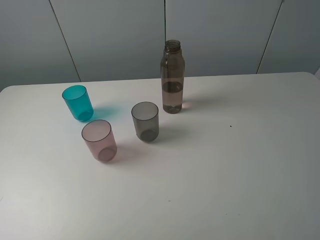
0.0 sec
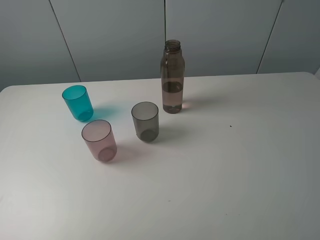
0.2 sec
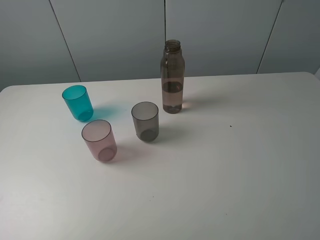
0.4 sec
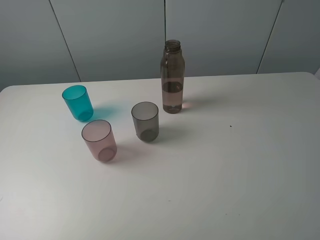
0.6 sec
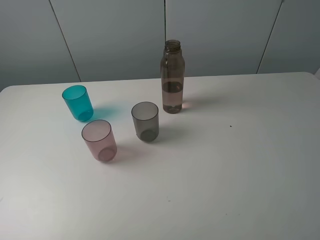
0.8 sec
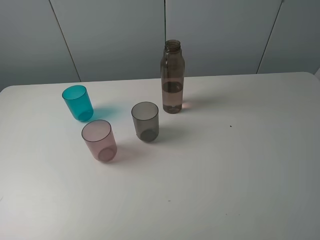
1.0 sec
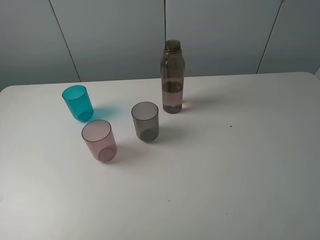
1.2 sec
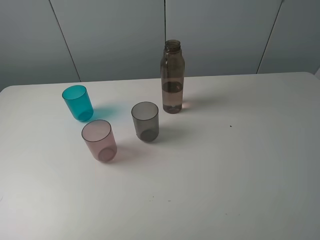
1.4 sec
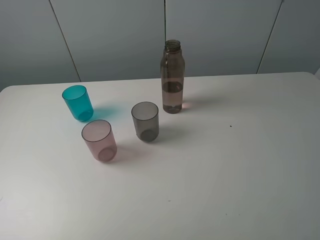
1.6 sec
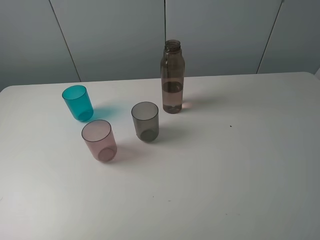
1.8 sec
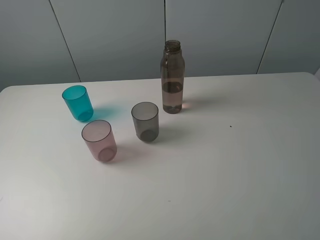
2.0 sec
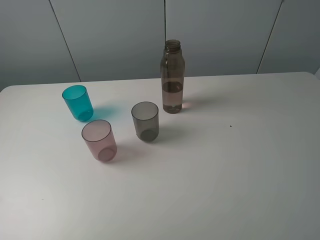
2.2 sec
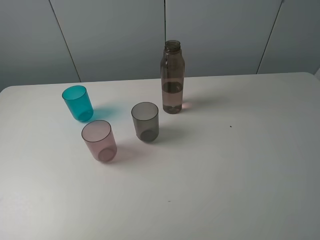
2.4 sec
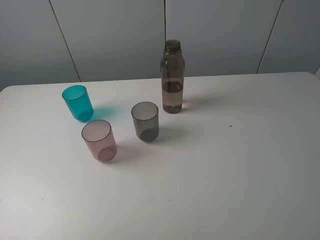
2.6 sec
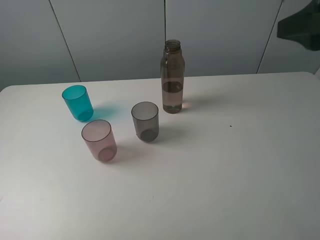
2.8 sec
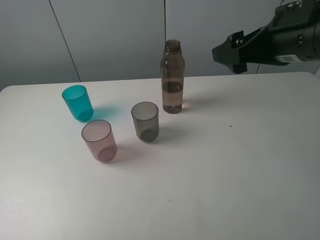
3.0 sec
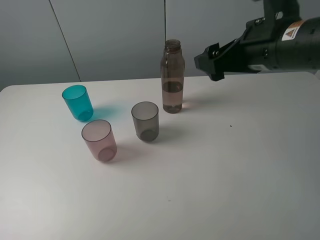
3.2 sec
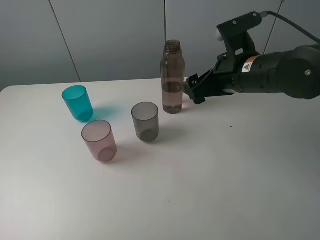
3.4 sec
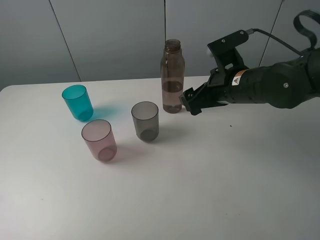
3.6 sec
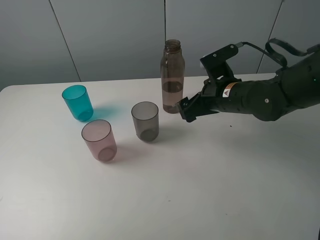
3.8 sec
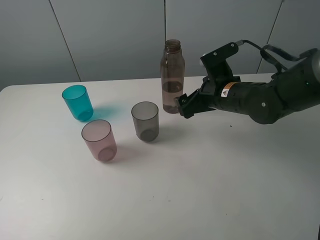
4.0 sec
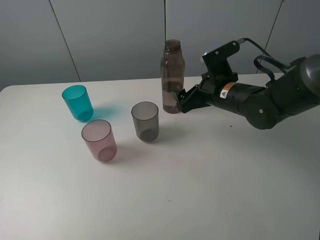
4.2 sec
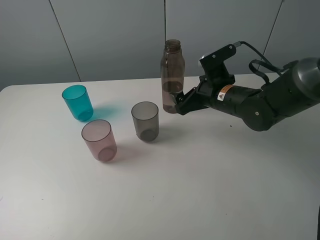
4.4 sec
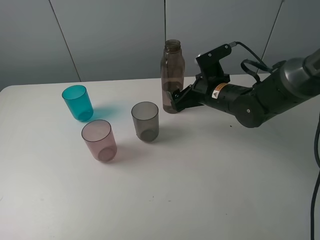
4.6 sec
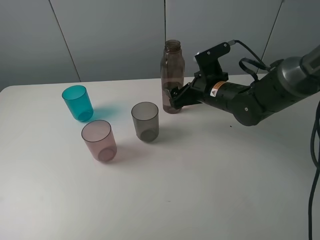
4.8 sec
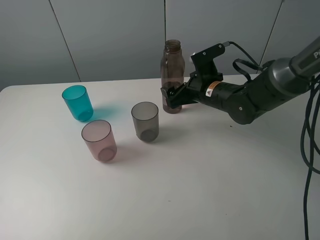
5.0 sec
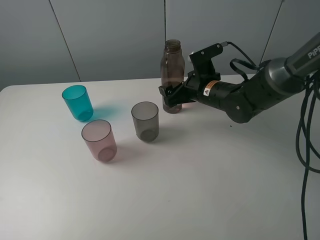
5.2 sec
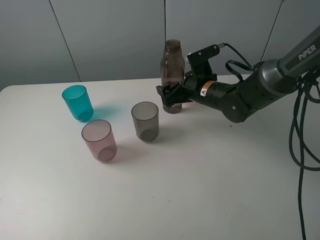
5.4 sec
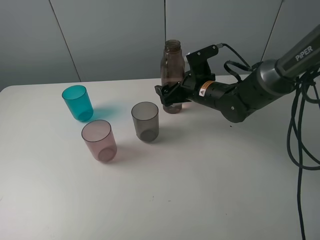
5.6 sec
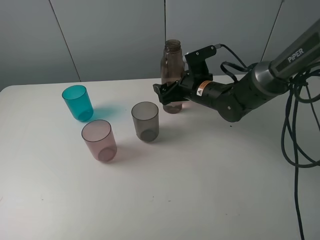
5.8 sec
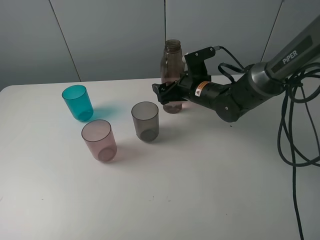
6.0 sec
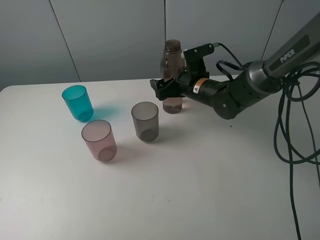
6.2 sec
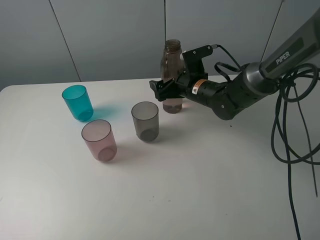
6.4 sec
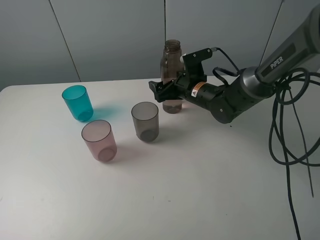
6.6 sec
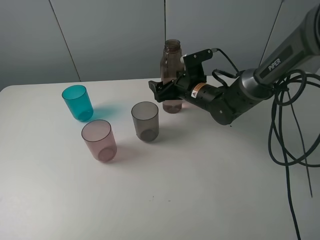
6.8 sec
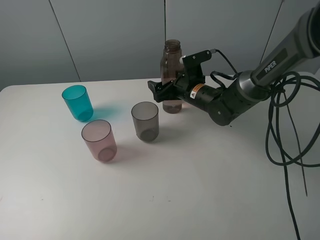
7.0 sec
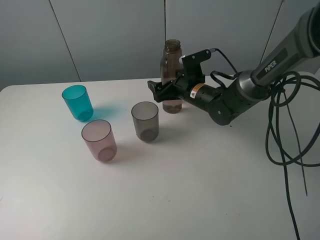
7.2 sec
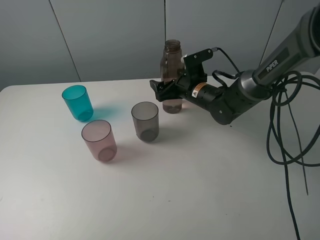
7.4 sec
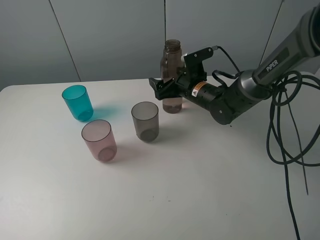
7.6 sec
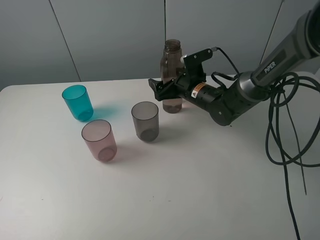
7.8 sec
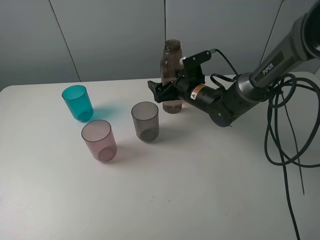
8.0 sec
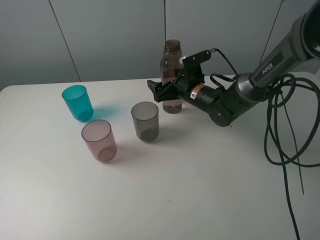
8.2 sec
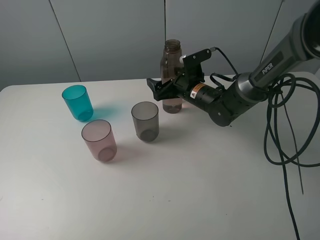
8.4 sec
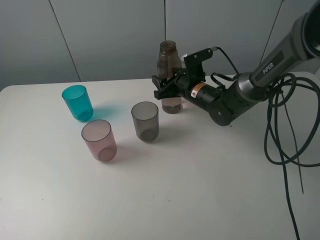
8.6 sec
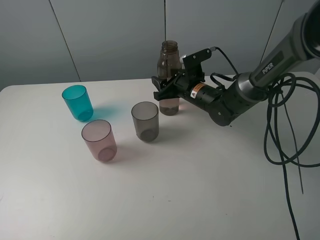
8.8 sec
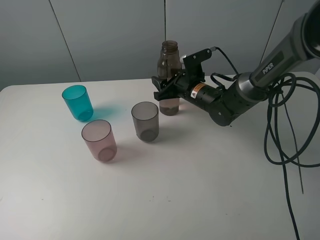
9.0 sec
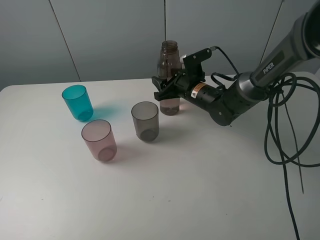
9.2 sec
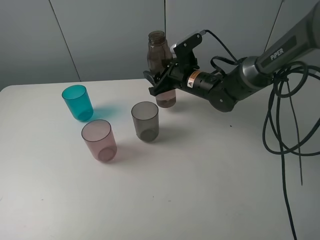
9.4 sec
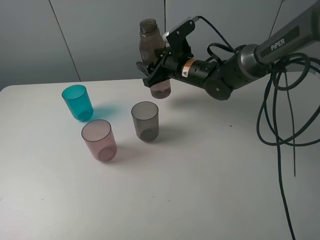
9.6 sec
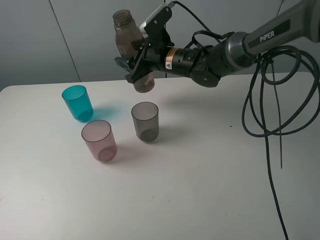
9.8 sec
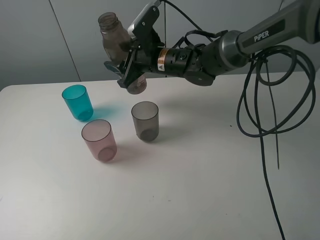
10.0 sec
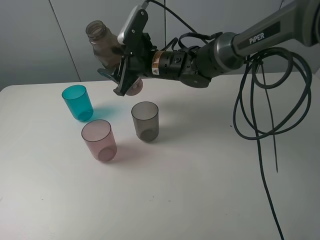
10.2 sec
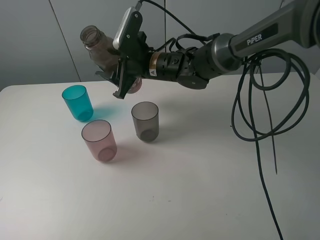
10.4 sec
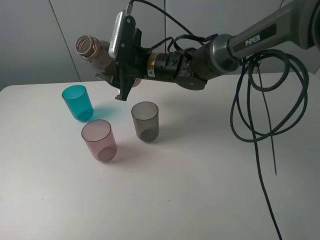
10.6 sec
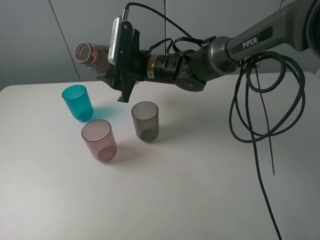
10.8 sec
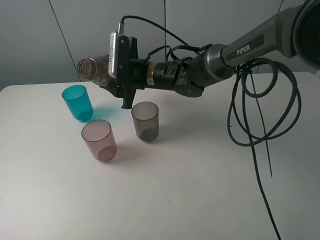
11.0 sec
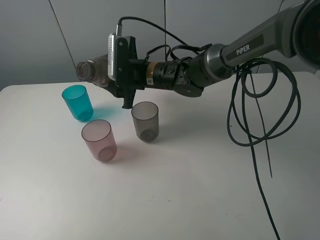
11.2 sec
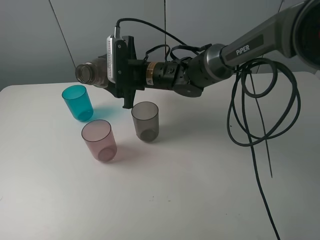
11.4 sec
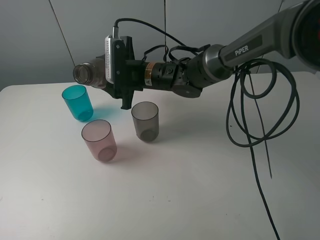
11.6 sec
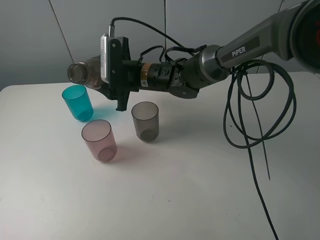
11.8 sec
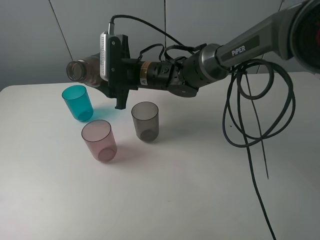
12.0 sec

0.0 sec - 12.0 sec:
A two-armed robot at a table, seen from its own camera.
Task of the whole recording: pick up the bottle filled with water and pour water into the middle cup of the three cups.
Step, 0.0 sec - 9.0 sec: Grasp the brown bottle with the right gripper.
0.0 sec - 1.6 sec: Both grippers stay put.
1.6 sec - 3.0 sec: The right gripper goes approximately 25 cm forward and to the left.
3.0 sec - 4.4 sec: The right gripper heads downward and forward, covering roughly 20 cm.
4.4 sec - 6.0 sec: The right gripper is displaced forward by approximately 5 cm.
6.0 sec - 7.6 sec: The grippers make only small movements.
7.6 sec - 9.0 sec: The right gripper closes up.
9.0 sec - 10.4 sec: The right gripper moves to the left and upward, approximately 15 cm.

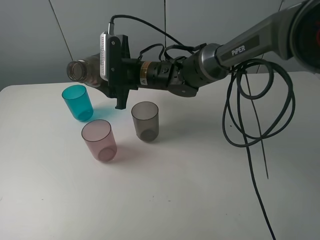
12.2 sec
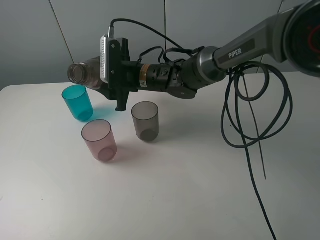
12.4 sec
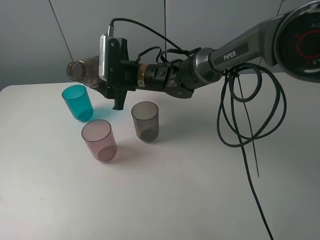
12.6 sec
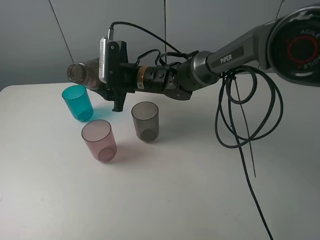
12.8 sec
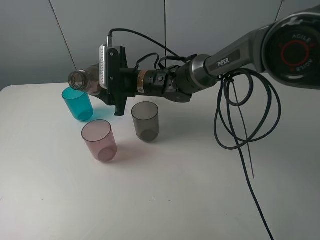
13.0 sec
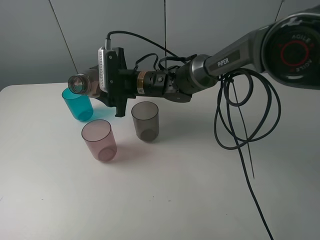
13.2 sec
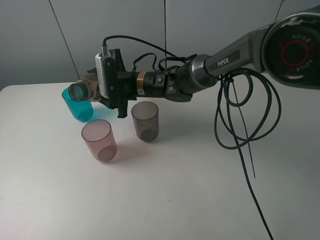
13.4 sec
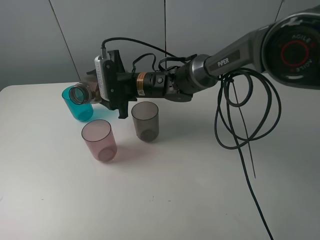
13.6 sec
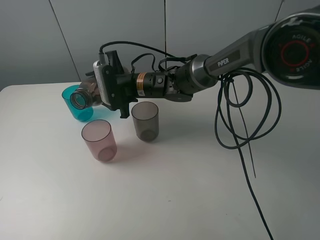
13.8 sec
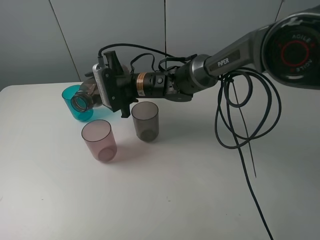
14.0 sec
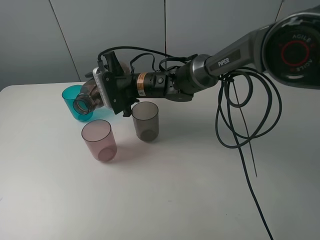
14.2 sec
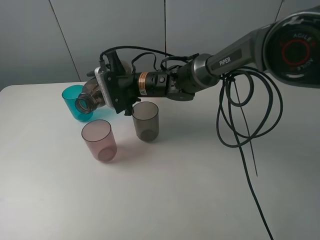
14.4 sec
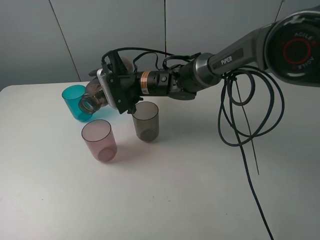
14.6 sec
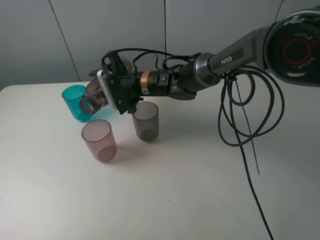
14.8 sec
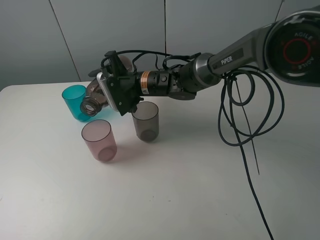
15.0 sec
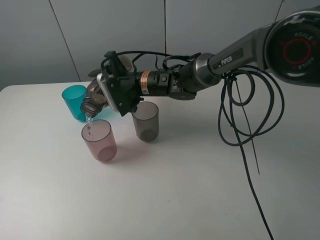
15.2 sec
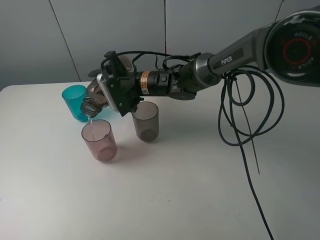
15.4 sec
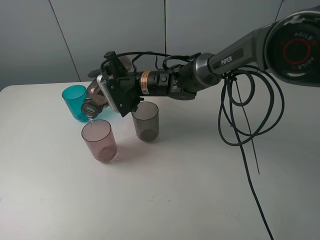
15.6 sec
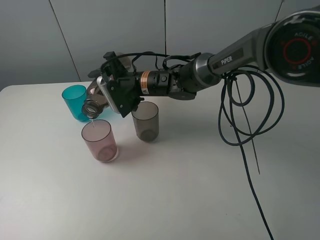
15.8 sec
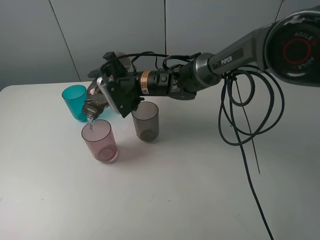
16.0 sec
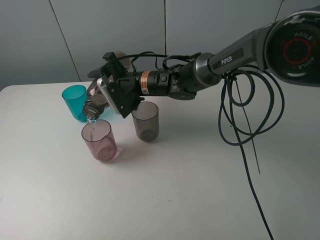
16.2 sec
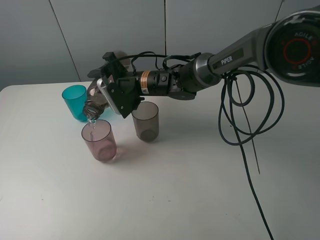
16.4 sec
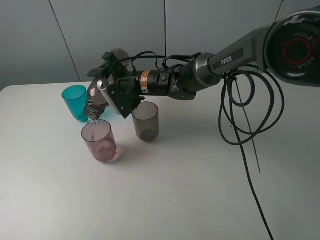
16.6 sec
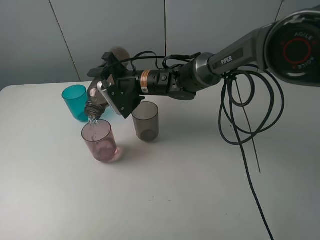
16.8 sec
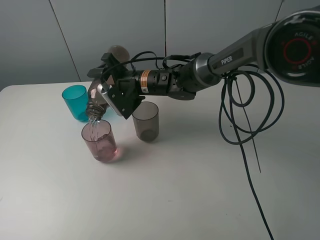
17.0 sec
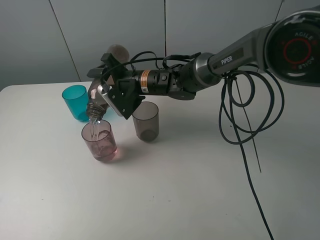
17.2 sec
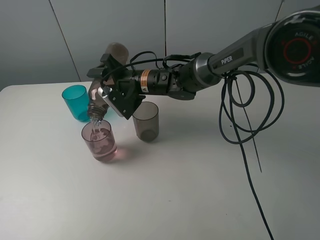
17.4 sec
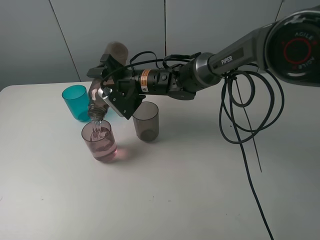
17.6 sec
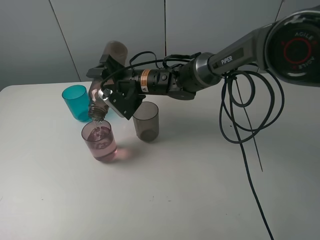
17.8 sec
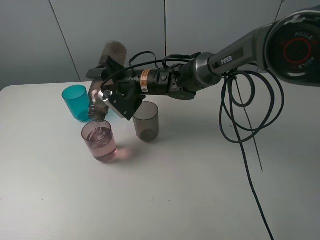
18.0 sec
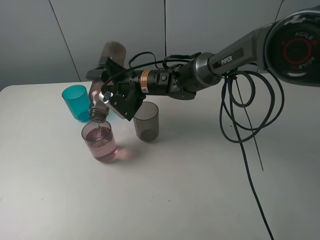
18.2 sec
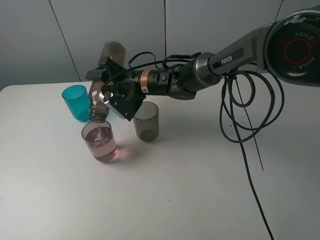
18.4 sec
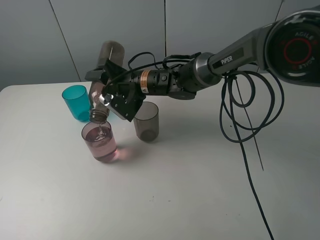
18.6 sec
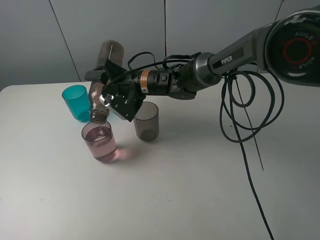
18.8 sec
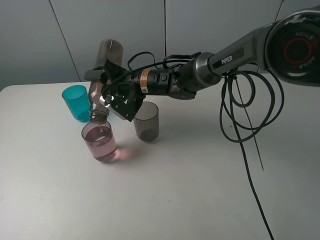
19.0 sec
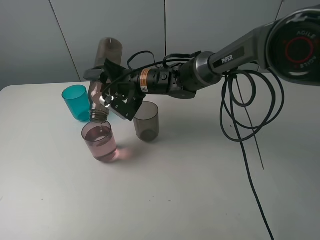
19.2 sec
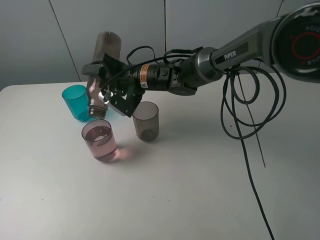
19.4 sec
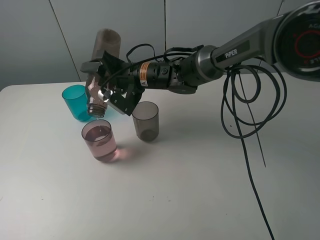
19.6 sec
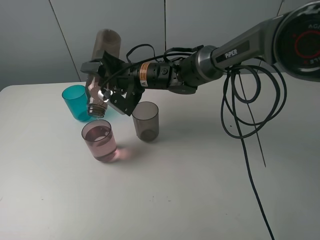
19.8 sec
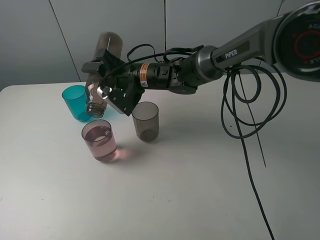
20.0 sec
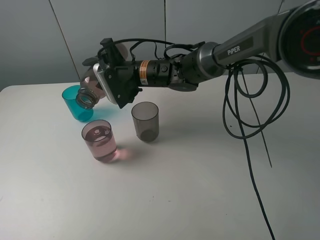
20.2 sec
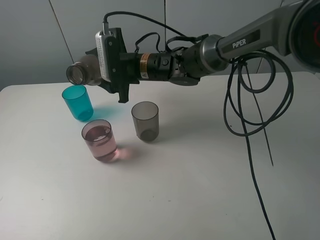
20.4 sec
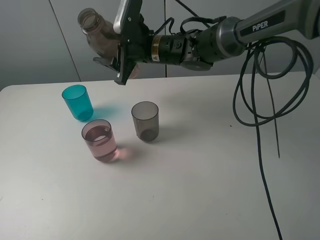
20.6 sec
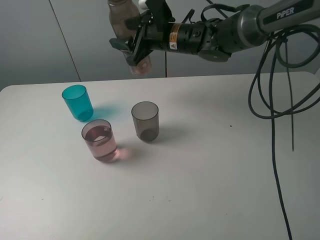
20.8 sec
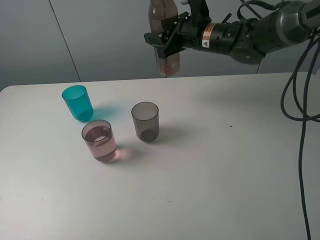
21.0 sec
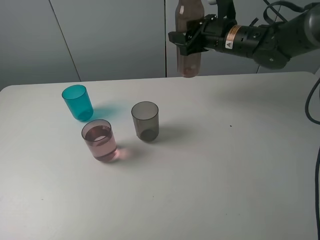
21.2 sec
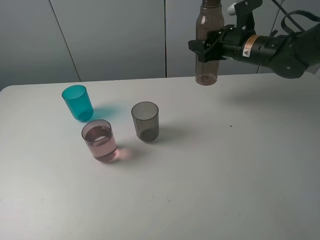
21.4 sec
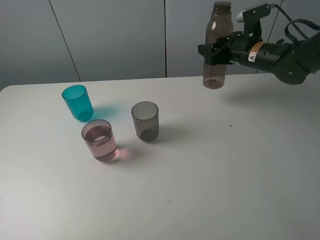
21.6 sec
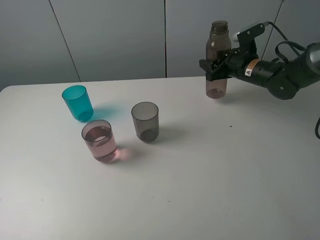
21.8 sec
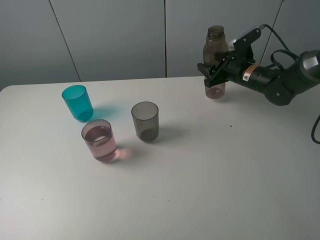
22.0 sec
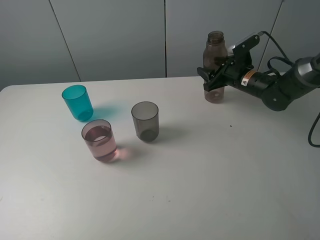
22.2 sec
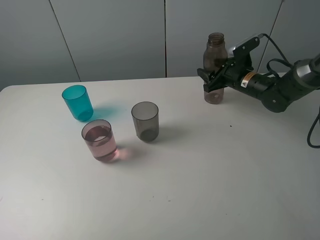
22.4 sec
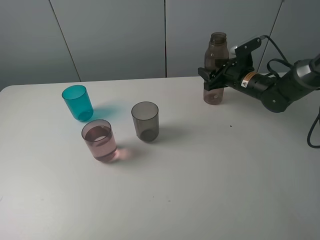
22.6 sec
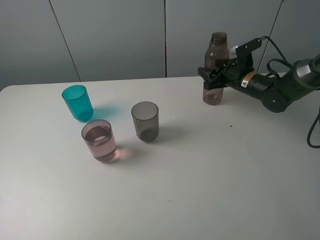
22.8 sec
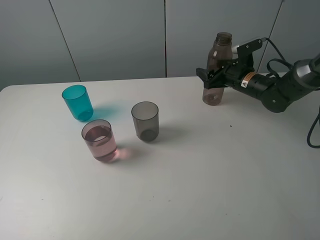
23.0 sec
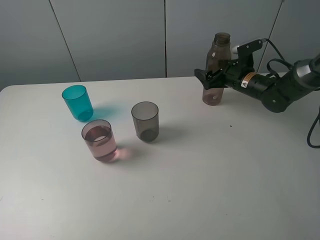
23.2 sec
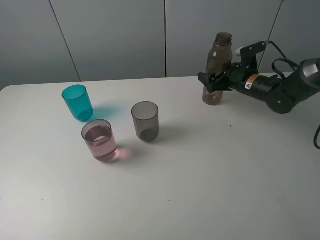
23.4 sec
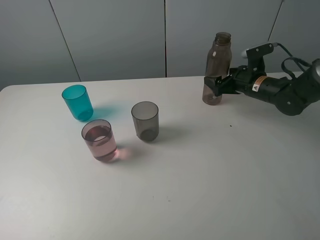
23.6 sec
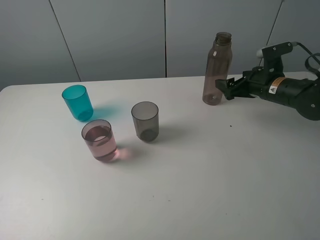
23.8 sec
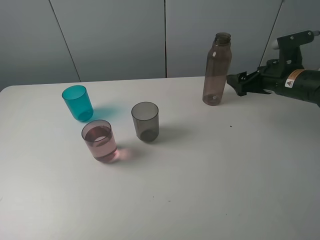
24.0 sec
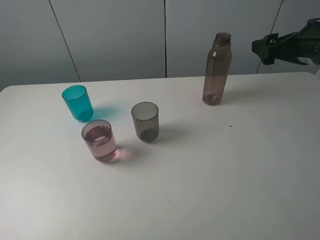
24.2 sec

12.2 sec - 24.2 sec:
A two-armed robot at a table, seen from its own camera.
Task of the whole recording: pick up the bottle filled with water and pour water into the middle cup of the three cups.
Step, 12.2 sec - 14.8 sec: Pour water from transparent bottle to red cup with the right gripper.
Step, 15.0 sec - 23.6 sec: Place the brown bottle with the right gripper.
12.2 sec - 13.8 sec: There are only small adjustments of the grippers.
13.8 sec - 15.2 sec: The grippers stay close to where they were, moving slightly.
15.2 sec - 16.6 sec: There are only small adjustments of the grippers.
16.6 sec - 18.2 sec: The grippers make only small movements.
18.2 sec - 19.8 sec: The grippers move only a little.
19.8 sec - 21.2 sec: The right gripper heads to the right, covering about 20 cm.
21.2 sec - 22.6 sec: The right gripper travels downward and to the right by approximately 15 cm.
22.6 sec - 24.2 sec: The right gripper goes roughly 20 cm upward and backward, and opens up.
